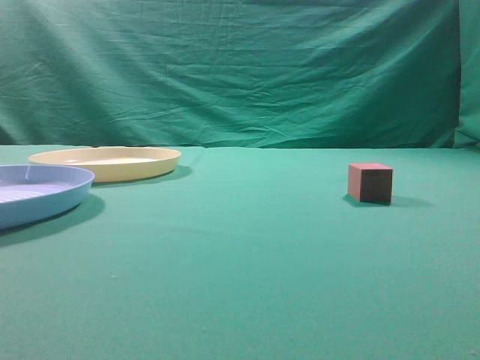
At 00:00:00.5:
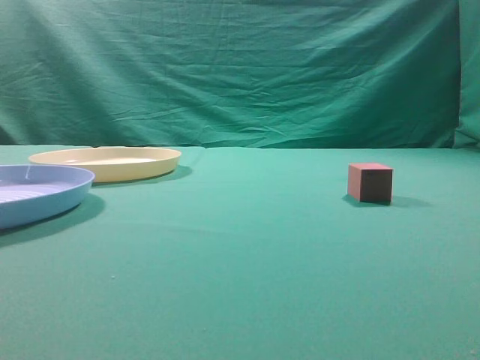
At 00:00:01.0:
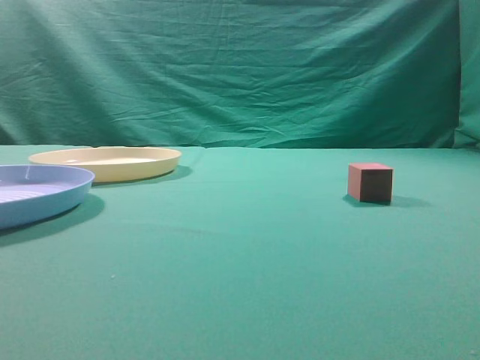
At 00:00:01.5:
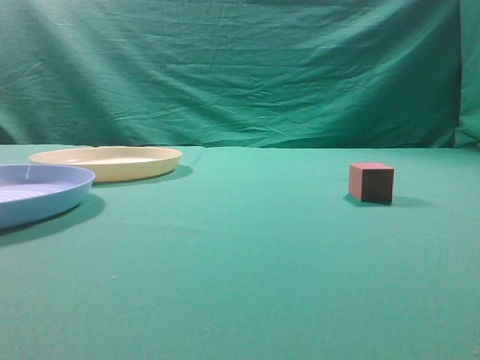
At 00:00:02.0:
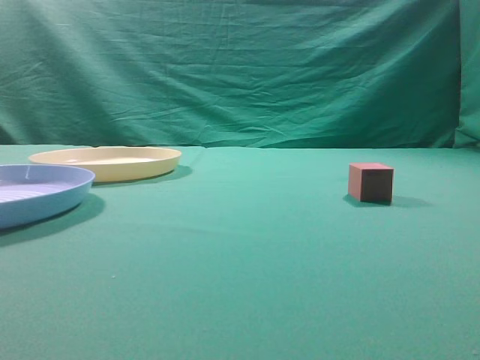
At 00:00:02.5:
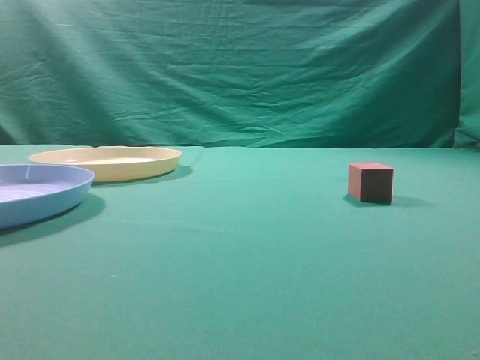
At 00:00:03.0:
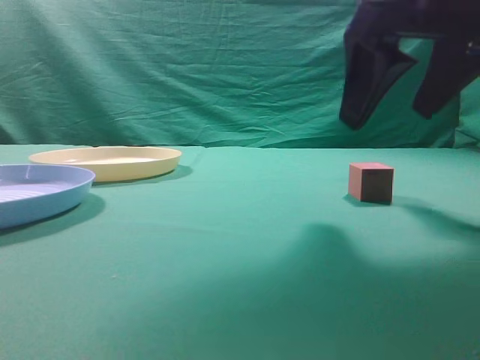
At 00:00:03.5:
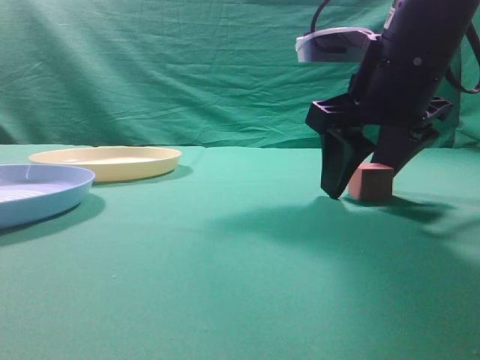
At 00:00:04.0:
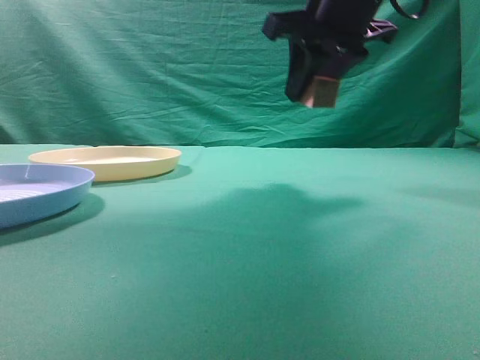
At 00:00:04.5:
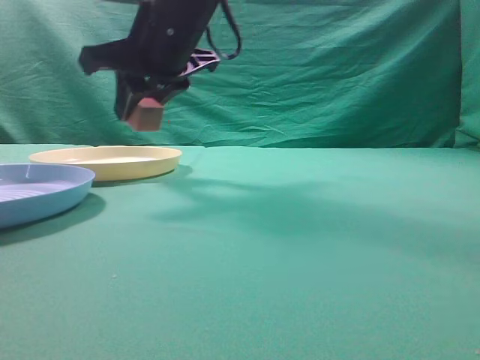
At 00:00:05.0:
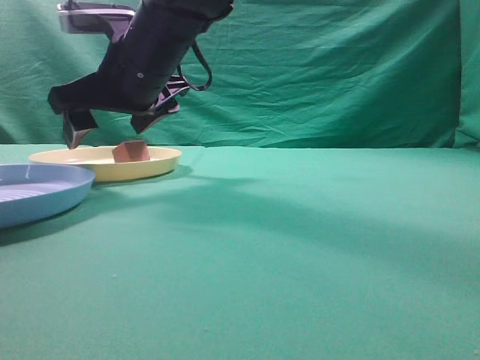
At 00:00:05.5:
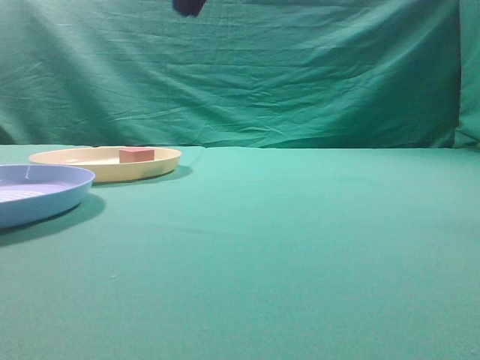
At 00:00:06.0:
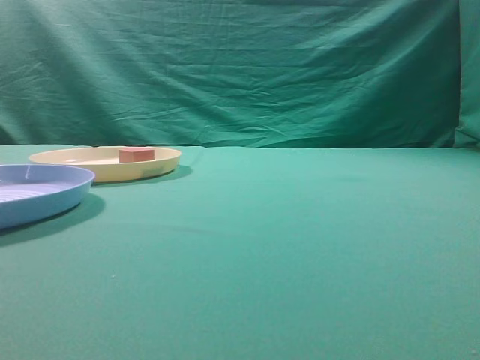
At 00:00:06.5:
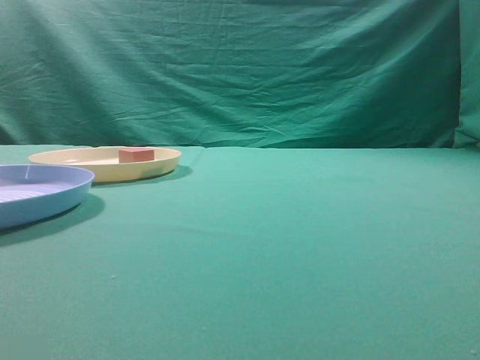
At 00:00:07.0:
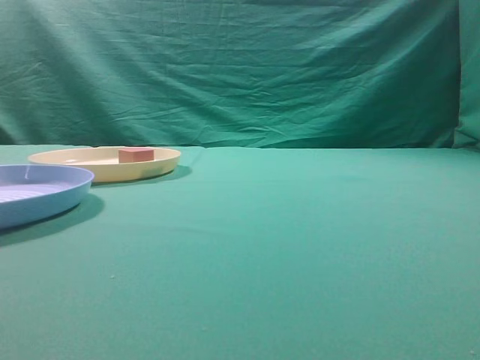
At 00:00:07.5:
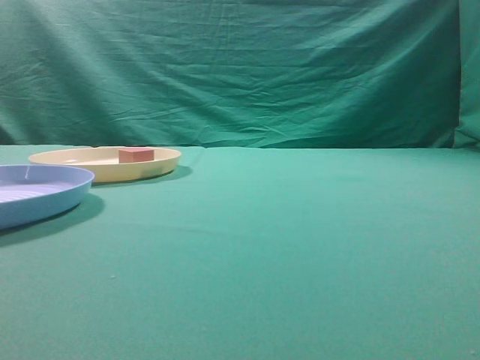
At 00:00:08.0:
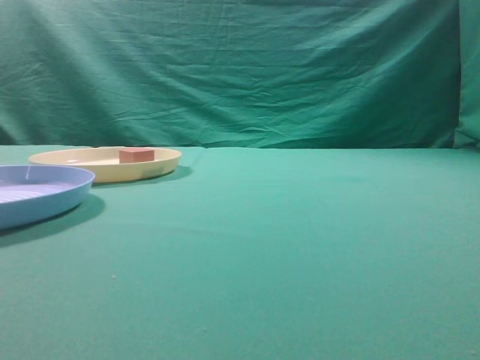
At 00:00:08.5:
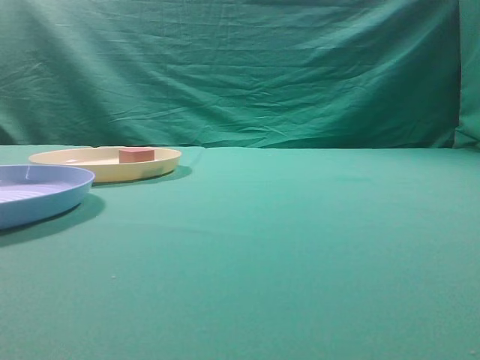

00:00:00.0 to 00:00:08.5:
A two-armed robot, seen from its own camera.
Task of the whole recording: pick up the cube block from the table and put it on the plate.
Step, 00:00:00.0 to 00:00:03.5: Grasp the small cube on the table.
Step, 00:00:04.0 to 00:00:05.0: Place it into the yellow plate.
00:00:02.0 to 00:00:04.0: The right gripper shifts some 30 cm forward and to the left, and opens its fingers.
00:00:04.0 to 00:00:06.5: The right gripper moves backward, upward and to the right, roughly 30 cm, and closes.
